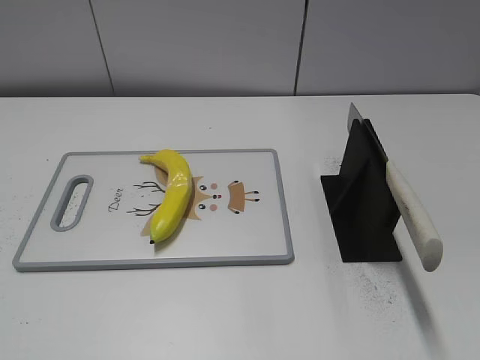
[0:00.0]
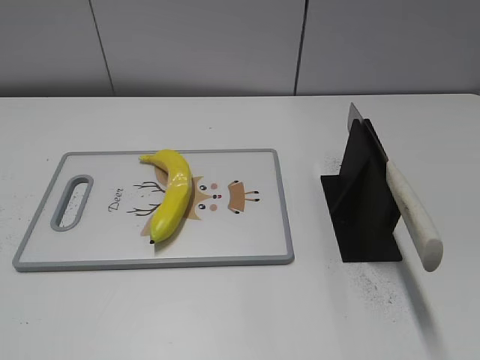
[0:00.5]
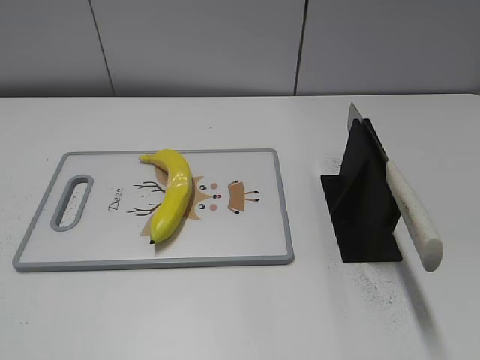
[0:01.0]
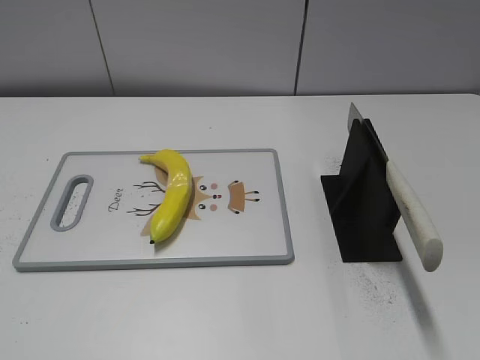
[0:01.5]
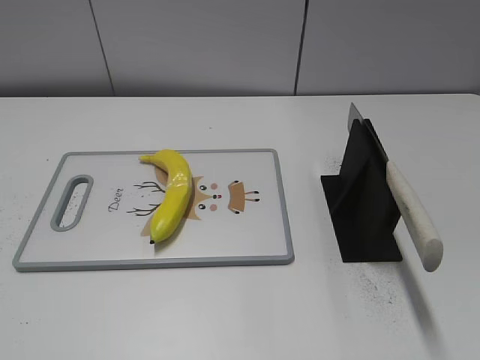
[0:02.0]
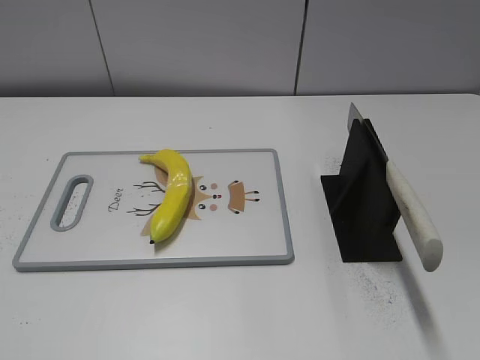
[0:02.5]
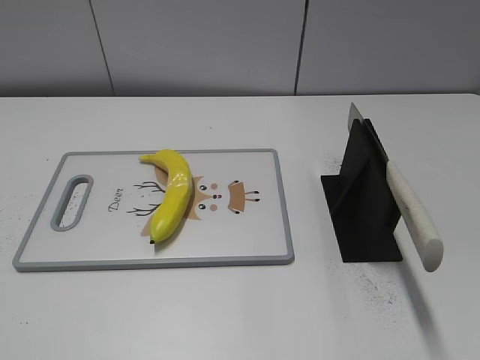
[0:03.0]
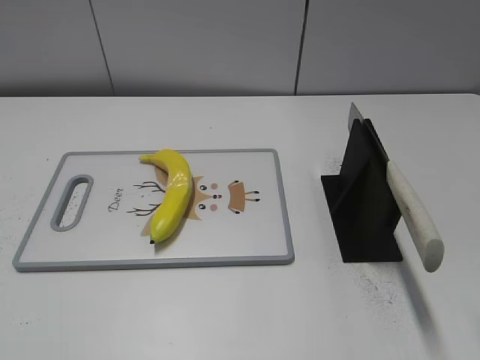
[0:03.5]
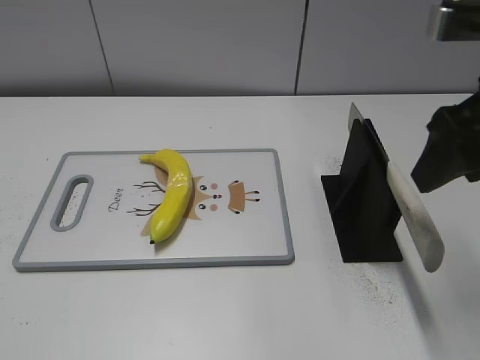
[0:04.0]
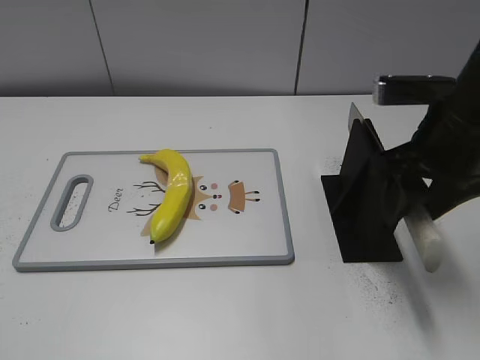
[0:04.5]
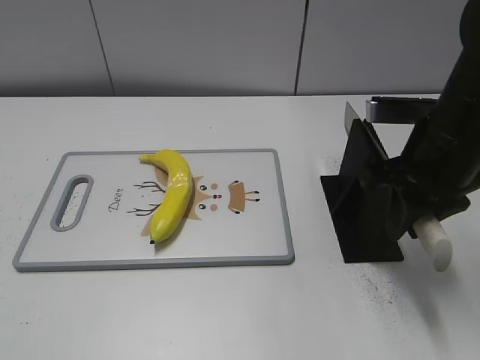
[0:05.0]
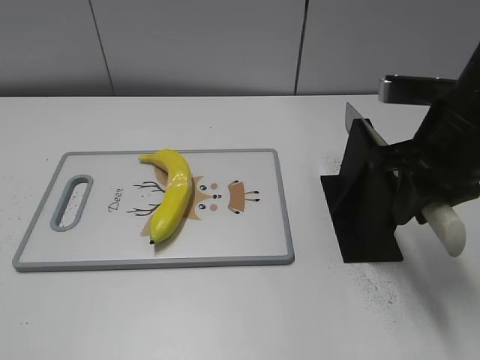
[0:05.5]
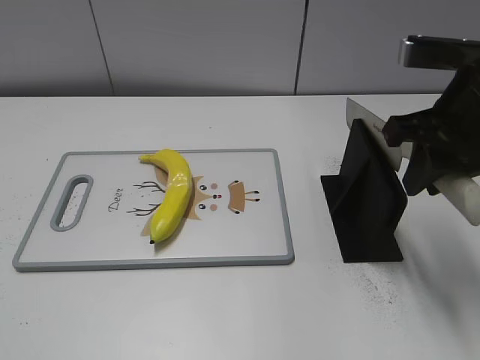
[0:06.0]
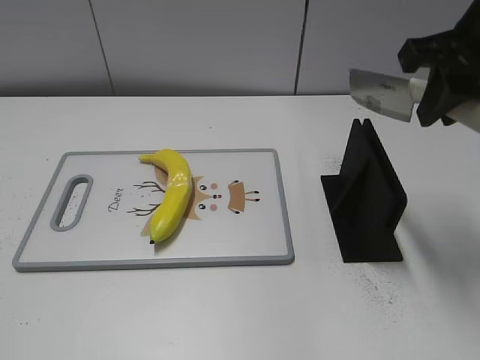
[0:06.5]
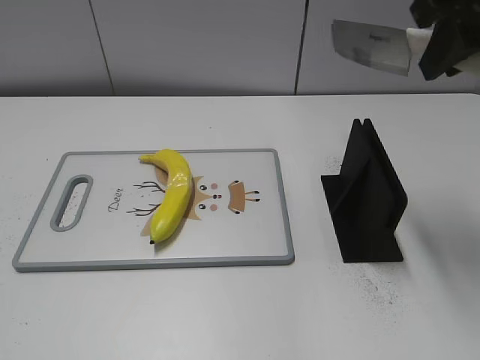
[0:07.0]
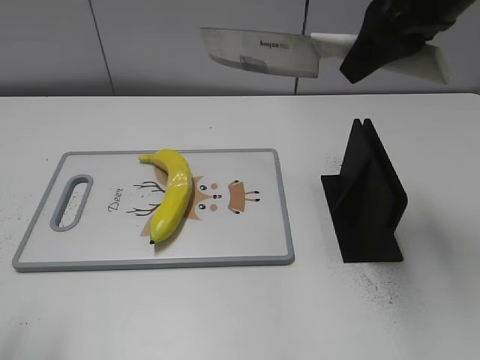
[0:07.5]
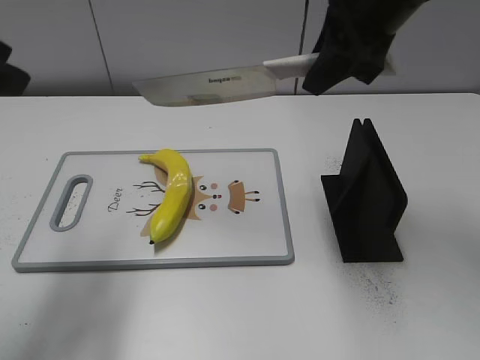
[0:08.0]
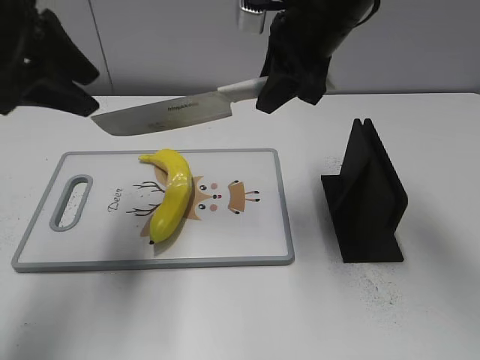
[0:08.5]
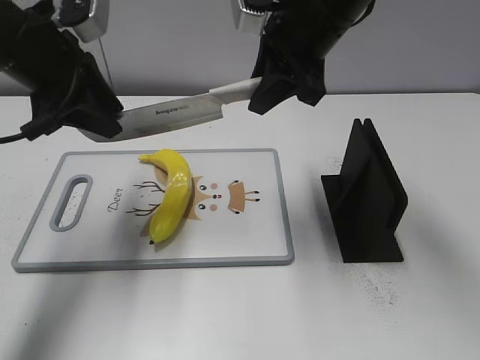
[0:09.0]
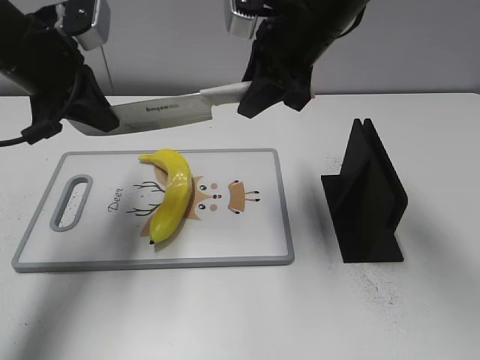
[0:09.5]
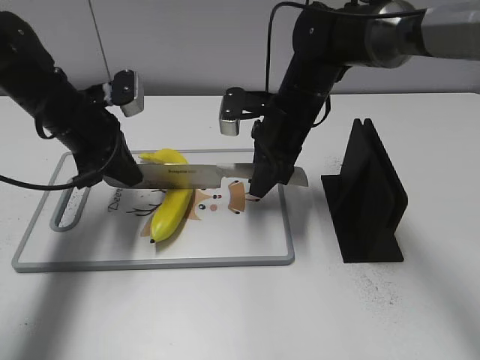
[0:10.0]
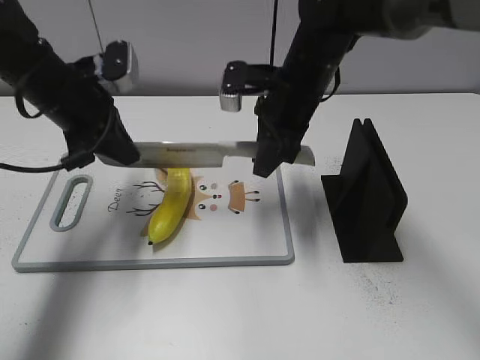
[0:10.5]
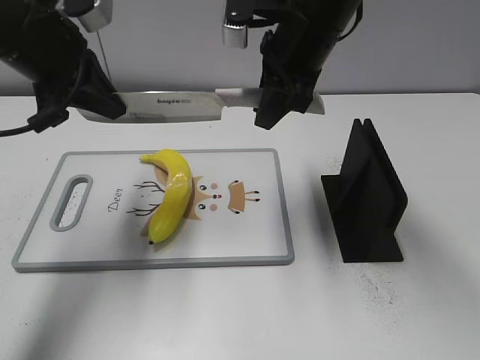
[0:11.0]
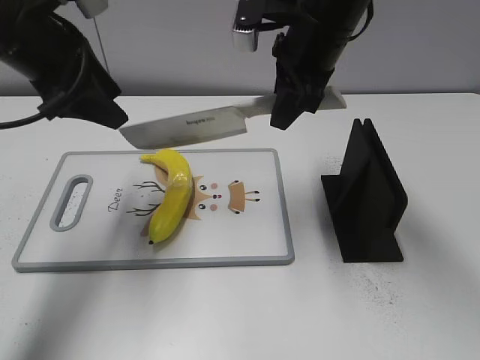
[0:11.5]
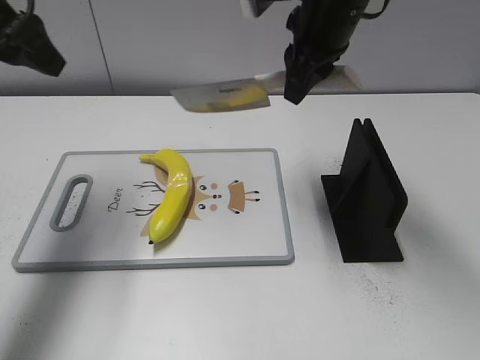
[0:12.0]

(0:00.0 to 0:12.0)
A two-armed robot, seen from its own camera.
Task of the whole recording: cut plastic banana.
Step, 0:00.0 - 0:06.0: Grab the knife handle with your right hand.
Step, 0:06.5 - 0:11.5: Lift the knife with your right hand.
0:02.0 - 0:04.0: The right gripper is displaced forward and to the left by roughly 25 cm.
0:04.0 - 0:06.0: The right gripper closes.
0:06.0 - 0:08.0: The left gripper travels forward by roughly 25 cm; the right gripper heads forward, to the left and upward, covering roughly 10 cm.
0:08.0 - 0:10.0: The right gripper goes approximately 20 cm downward; the left gripper is displaced downward and forward by approximately 25 cm, and closes.
0:10.0 - 0:12.0: The grippers both shift upward by about 15 cm. The left gripper opens.

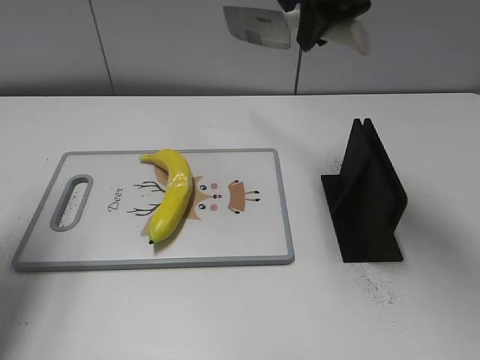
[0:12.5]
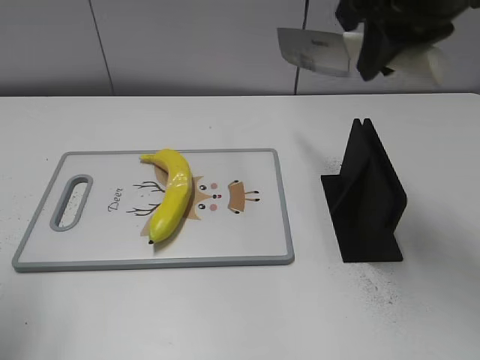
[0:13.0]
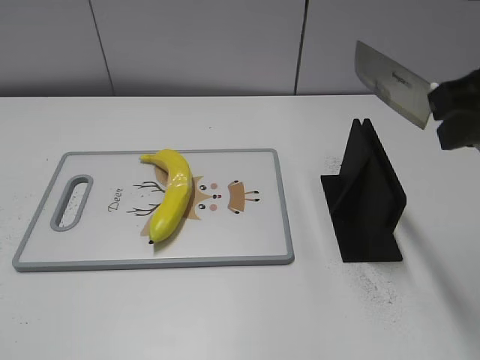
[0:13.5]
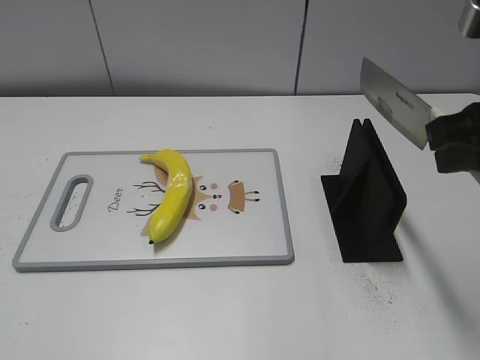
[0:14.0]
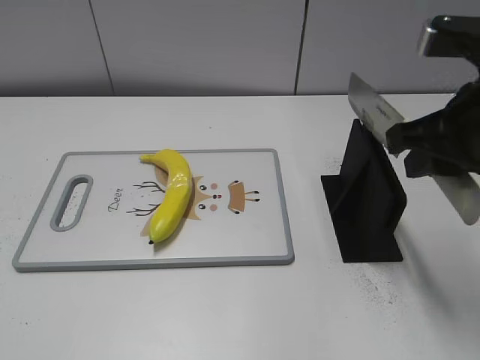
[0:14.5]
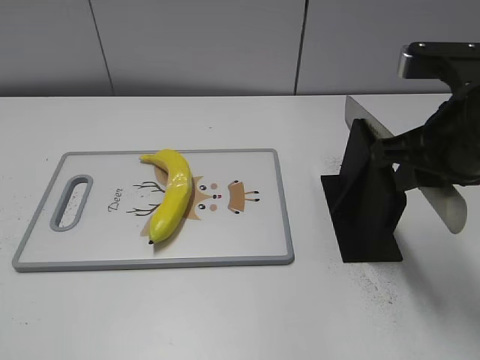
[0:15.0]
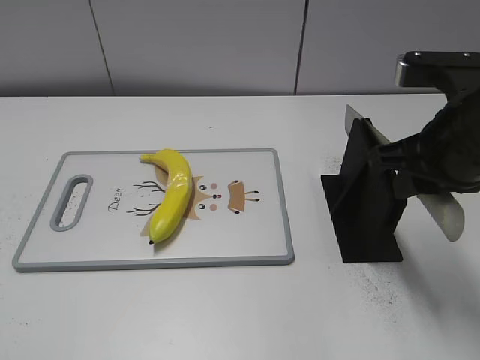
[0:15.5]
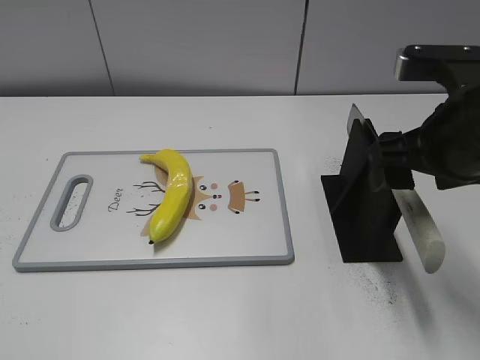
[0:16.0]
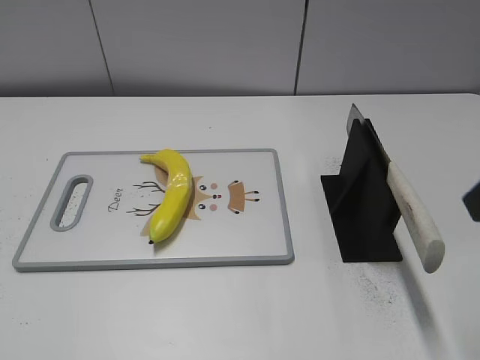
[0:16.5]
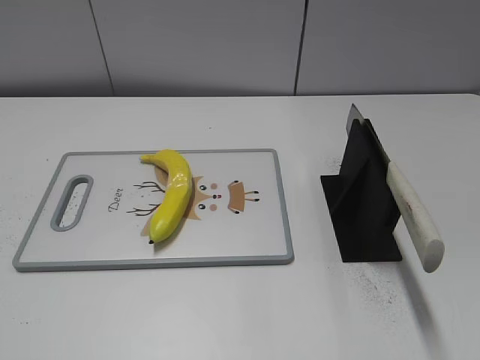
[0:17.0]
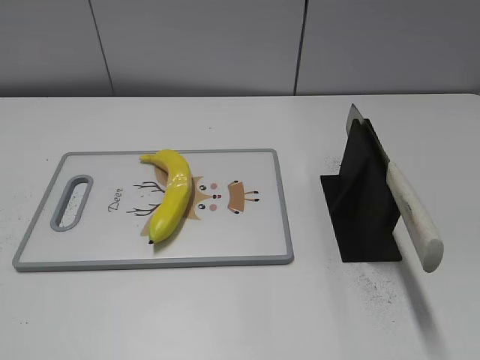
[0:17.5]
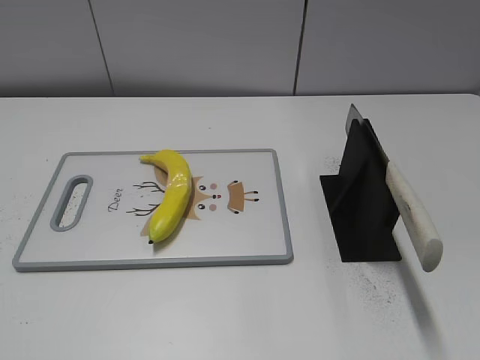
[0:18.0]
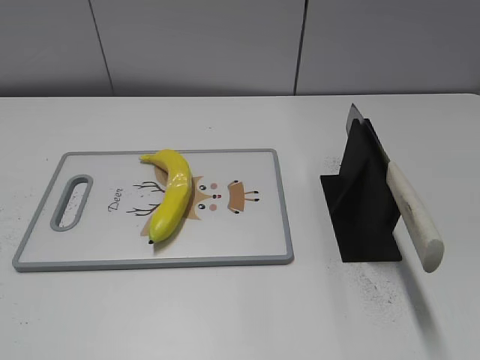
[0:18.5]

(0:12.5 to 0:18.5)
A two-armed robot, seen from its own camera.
Task of the whole recording: cut plastic banana.
Step, 0:13.0 - 0:14.0: Lift the knife with your right hand.
Step, 0:14.5 - 0:18.5: Place the knife on the storage rack with your right hand.
0:12.5 - 0:14.5: The right gripper heads backward, to the right and downward, covering some 20 cm. Meanwhile the left gripper heads backward, covering some 30 cm.
0:14.5 - 0:16.5: The right gripper heads backward, covering approximately 5 cm, and opens its fingers.
